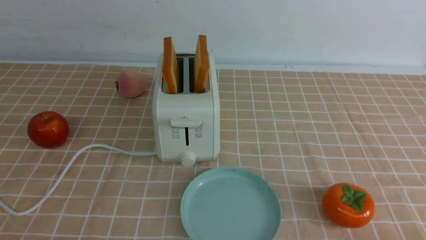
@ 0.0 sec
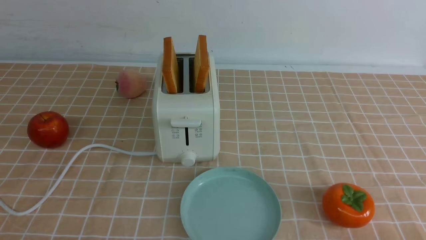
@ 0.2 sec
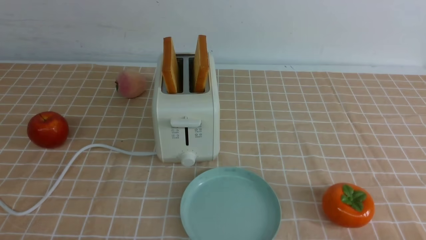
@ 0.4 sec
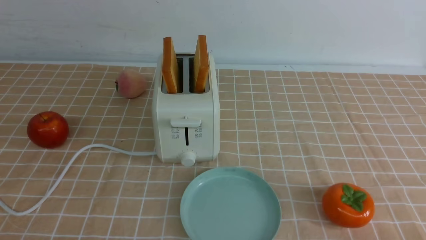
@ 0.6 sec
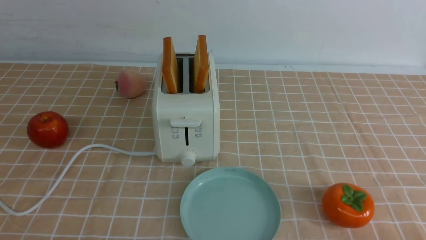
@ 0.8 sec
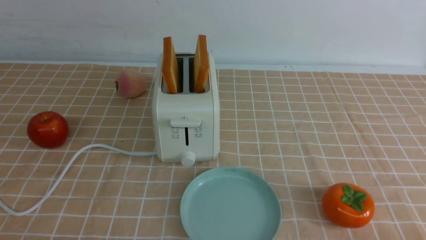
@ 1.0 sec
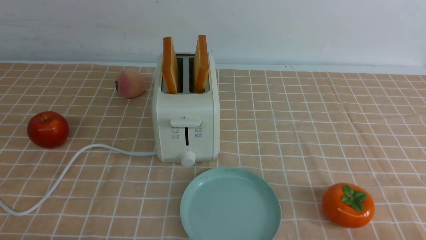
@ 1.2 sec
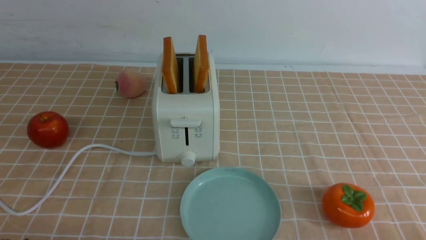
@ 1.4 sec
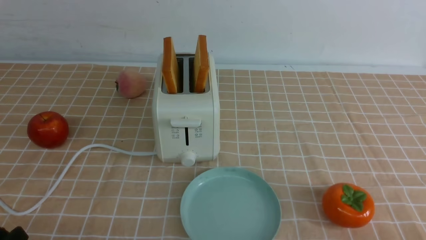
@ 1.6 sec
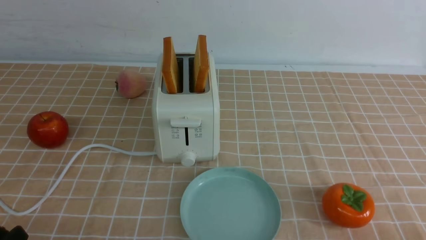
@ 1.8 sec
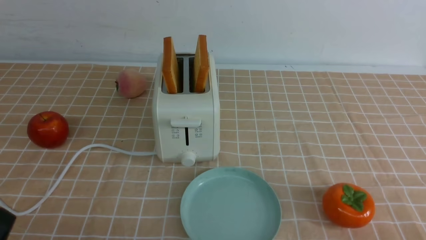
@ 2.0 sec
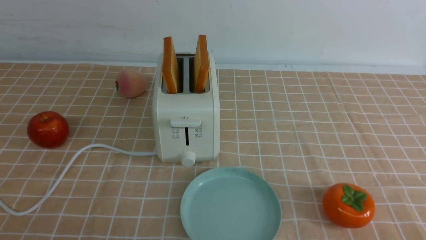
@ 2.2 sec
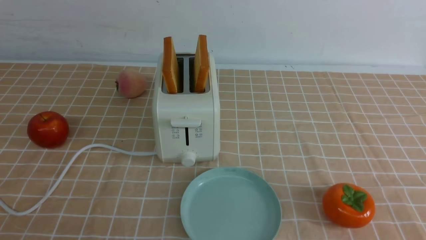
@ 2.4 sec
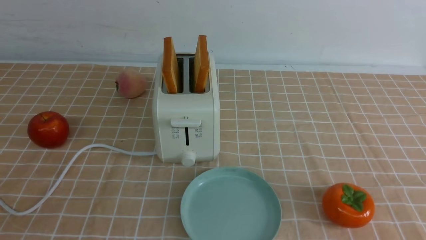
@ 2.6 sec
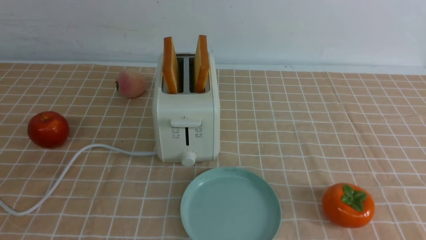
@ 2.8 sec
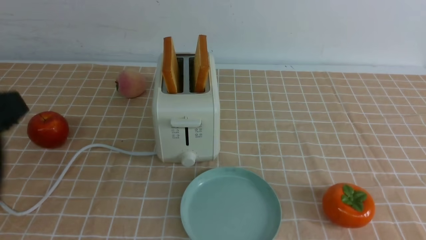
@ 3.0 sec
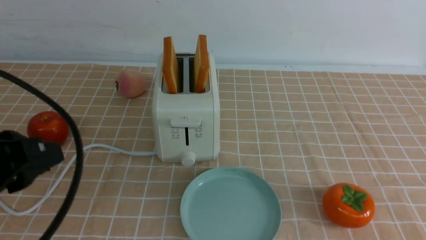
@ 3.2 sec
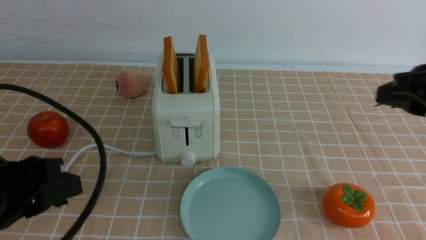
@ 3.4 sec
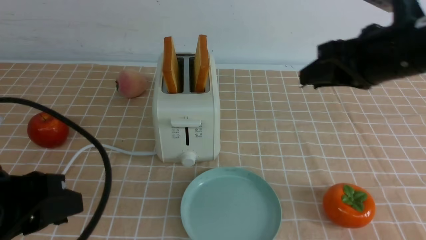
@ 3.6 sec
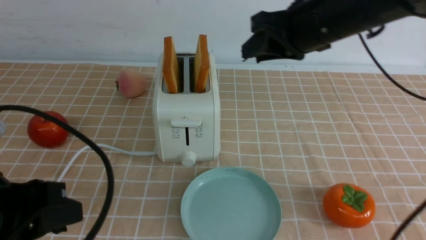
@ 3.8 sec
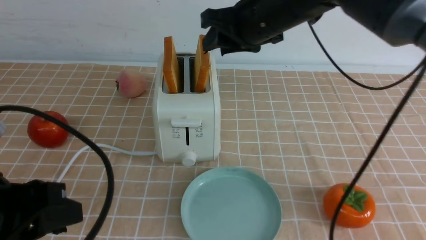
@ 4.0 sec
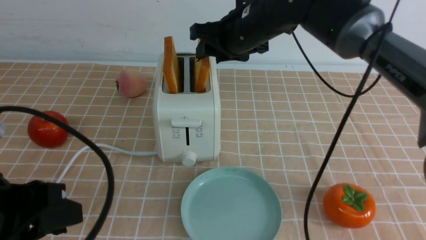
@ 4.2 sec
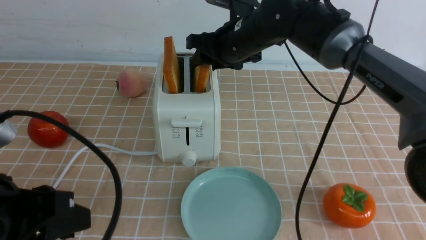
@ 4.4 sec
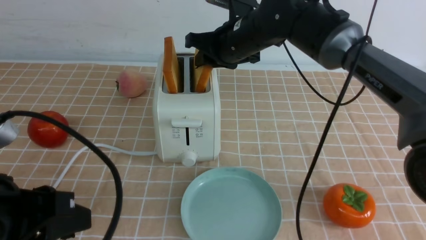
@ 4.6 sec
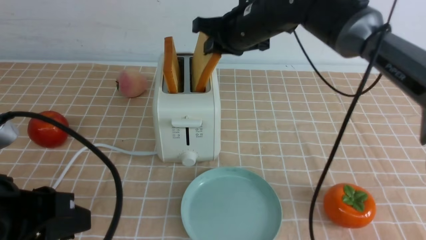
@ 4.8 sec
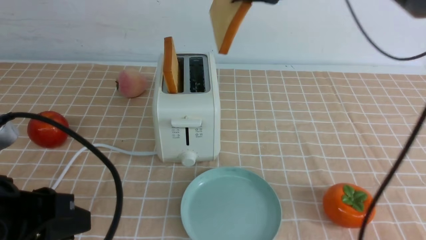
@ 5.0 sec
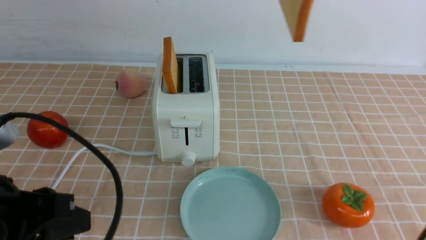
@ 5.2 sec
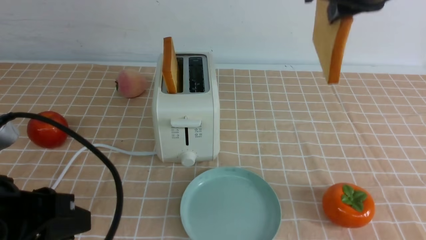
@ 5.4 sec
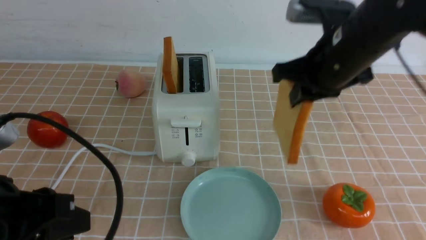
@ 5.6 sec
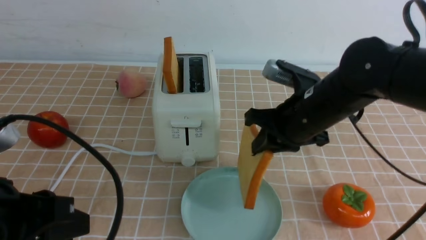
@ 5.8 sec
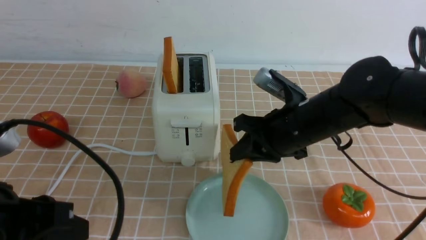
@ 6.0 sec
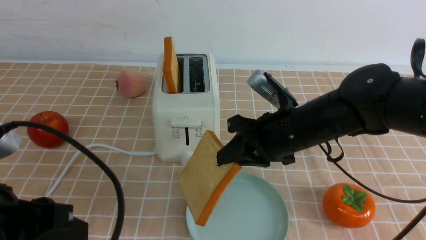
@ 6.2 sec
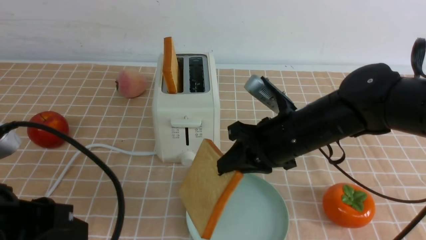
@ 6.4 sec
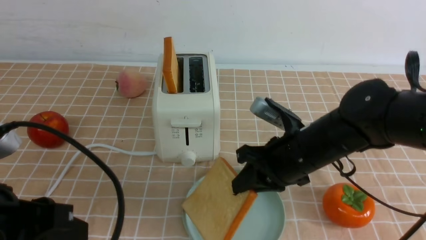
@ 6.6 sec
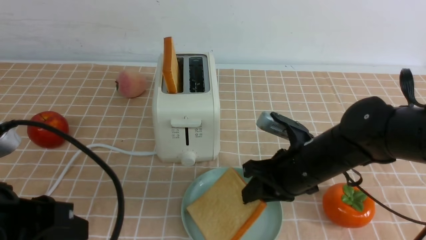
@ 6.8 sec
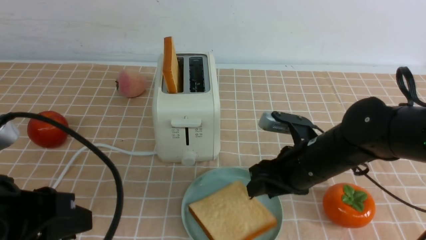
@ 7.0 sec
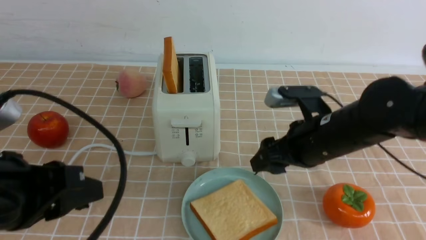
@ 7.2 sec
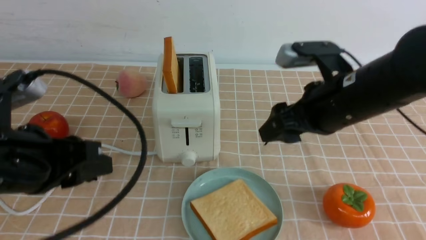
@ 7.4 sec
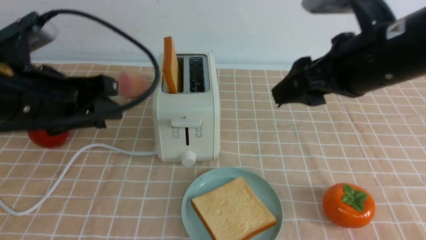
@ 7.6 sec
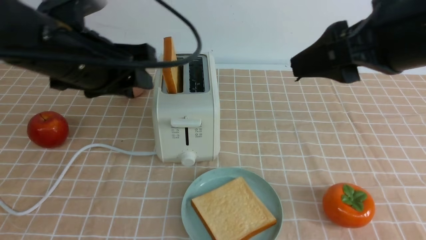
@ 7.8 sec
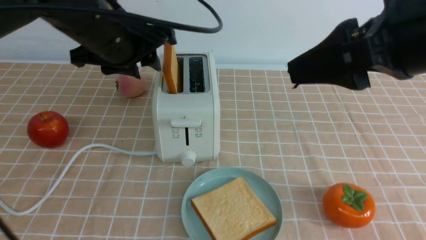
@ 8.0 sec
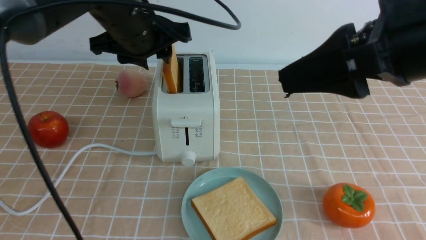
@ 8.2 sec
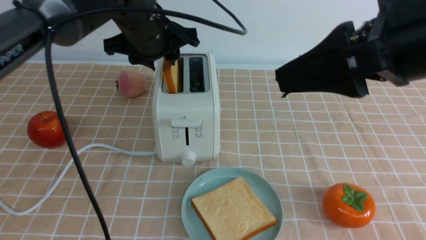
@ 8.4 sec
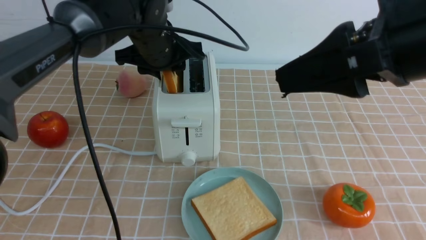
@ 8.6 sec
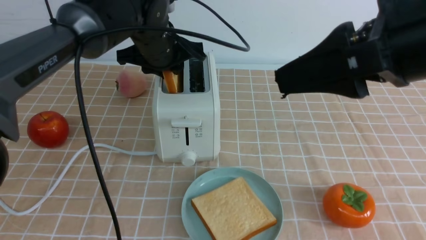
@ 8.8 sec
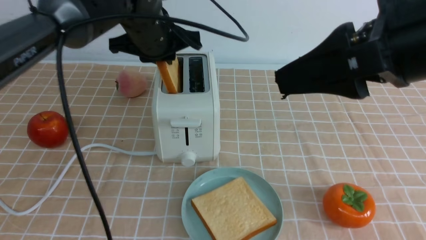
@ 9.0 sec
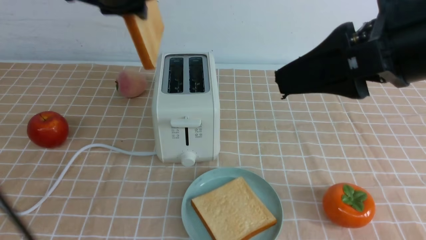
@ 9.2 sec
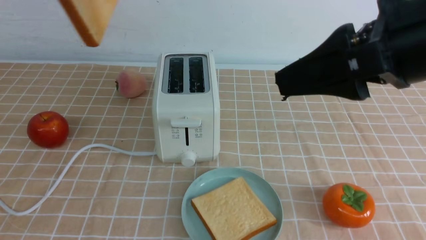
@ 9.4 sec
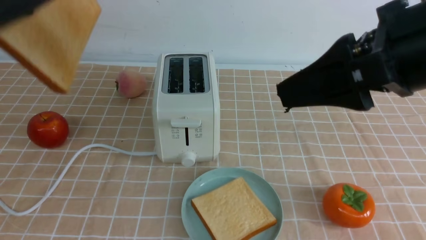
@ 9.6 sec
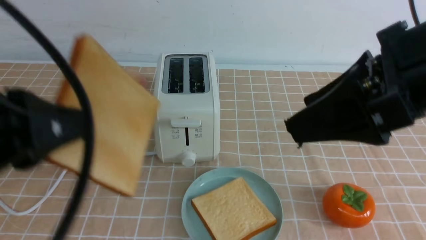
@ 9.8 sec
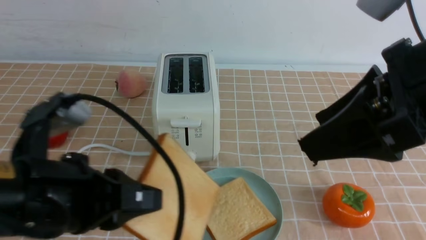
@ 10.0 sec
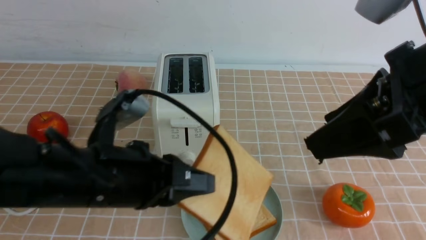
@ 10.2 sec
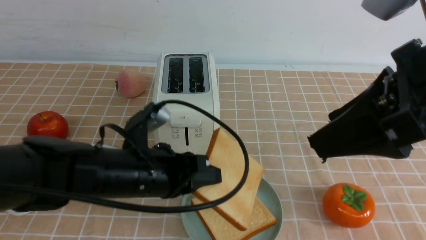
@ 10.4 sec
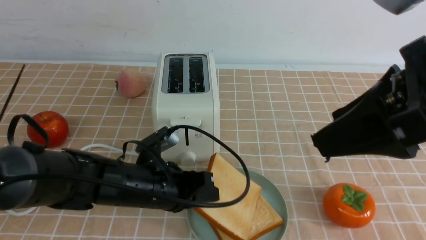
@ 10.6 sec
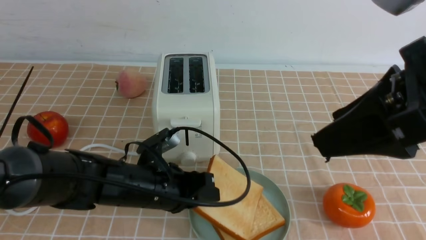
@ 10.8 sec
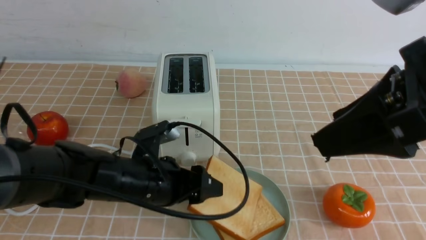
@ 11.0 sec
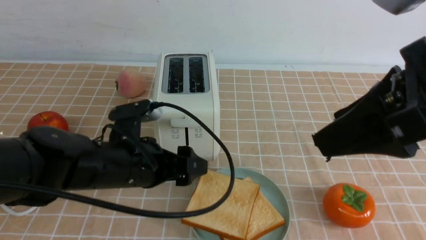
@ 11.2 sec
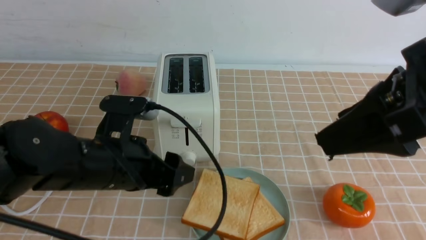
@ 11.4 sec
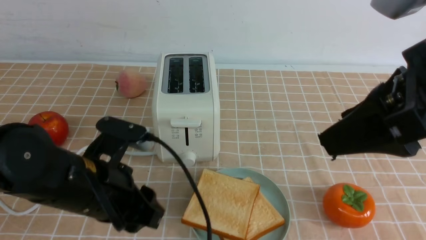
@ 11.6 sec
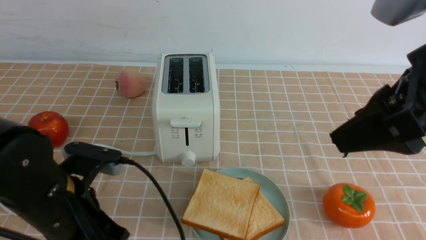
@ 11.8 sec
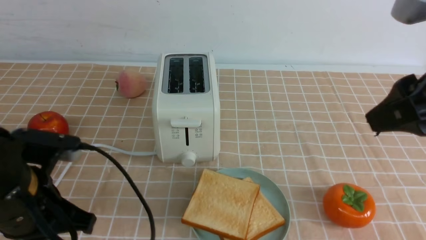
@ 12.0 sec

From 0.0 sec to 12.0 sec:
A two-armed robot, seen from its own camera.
Task of the whole recording: take toasted bread from bread machine on light coffee tablecloth place on plate.
Step, from 0.0 sec to 4.8 sec: use the right arm to take out a slice of bread.
Step, from 5.0 sec to 6.8 sec: use the right arm to put a slice of bread into the plate.
Step, from 7.2 sec to 9.0 sec: use the left arm to take out a slice of bread.
Step, from 9.2 sec to 11.0 sec: use the left arm to put a slice of bread into the empty plate.
From 1.6 sec to 3.0 sec: The left gripper travels upward by roughly 15 cm.
From 3.0 sec to 4.4 sec: The left gripper travels downward by about 5 cm; the right gripper shifts about 40 cm forward and to the left.
From 4.4 sec to 6.0 sec: The right gripper goes roughly 15 cm backward and to the right, travels upward and back again, about 15 cm each way, and closes up.
From 6.0 sec to 7.6 sec: The right gripper shifts some 15 cm upward and backward, and opens, while the left gripper is displaced forward by roughly 10 cm.
From 7.6 sec to 9.0 sec: The left gripper travels forward and to the right by some 15 cm. Meanwhile the right gripper goes roughly 10 cm backward and upward.
From 9.0 sec to 10.4 sec: The left gripper travels downward and backward by some 20 cm.
From 10.4 sec to 12.0 sec: The left gripper heads to the left and backward, covering about 10 cm, and opens and closes again.

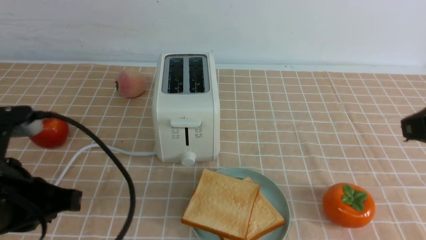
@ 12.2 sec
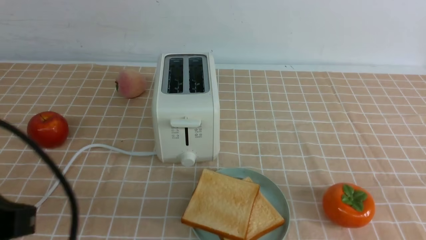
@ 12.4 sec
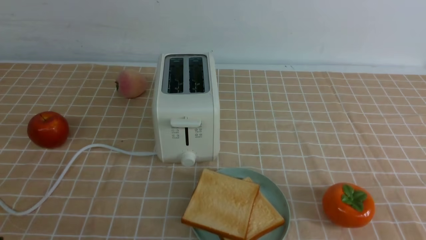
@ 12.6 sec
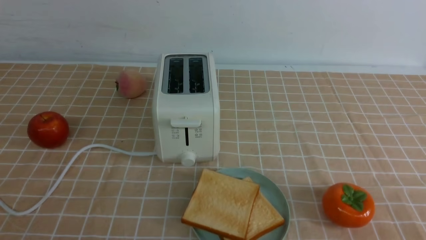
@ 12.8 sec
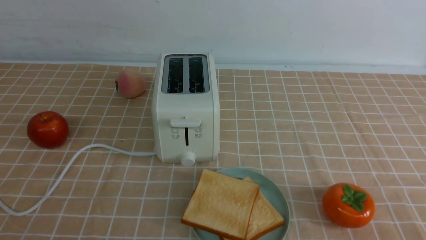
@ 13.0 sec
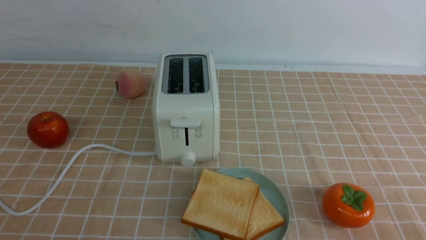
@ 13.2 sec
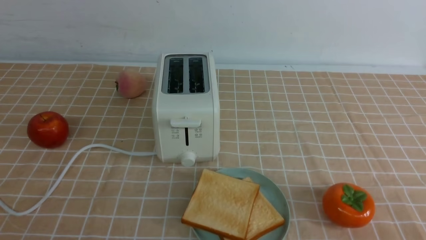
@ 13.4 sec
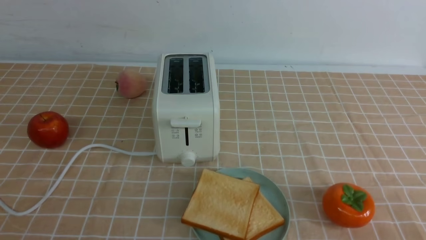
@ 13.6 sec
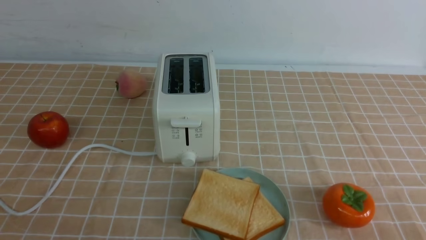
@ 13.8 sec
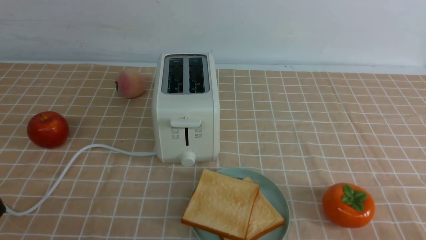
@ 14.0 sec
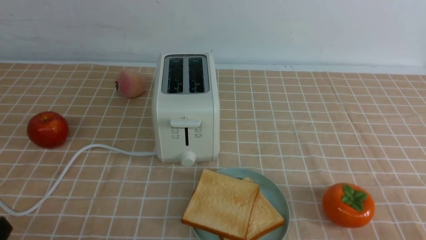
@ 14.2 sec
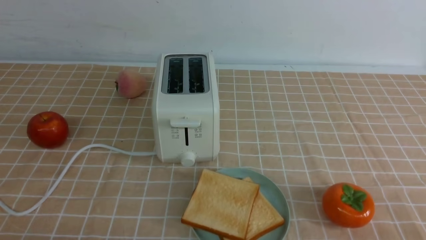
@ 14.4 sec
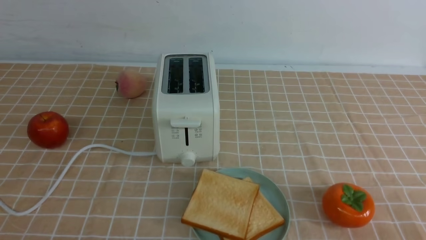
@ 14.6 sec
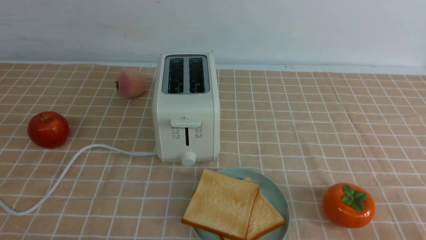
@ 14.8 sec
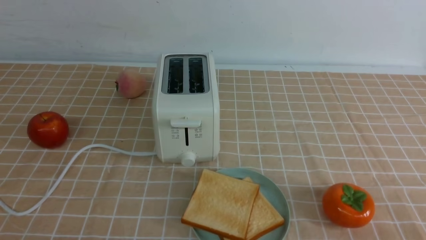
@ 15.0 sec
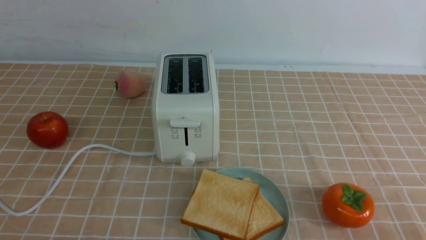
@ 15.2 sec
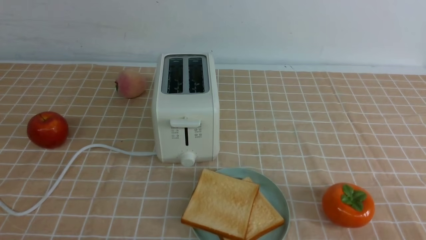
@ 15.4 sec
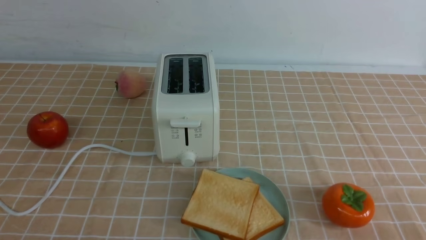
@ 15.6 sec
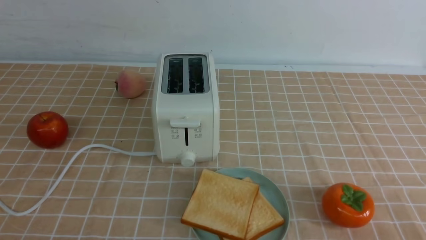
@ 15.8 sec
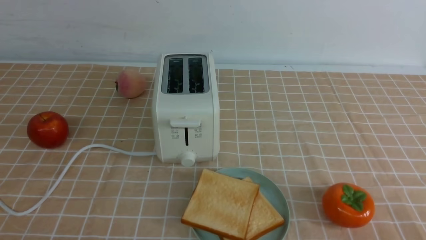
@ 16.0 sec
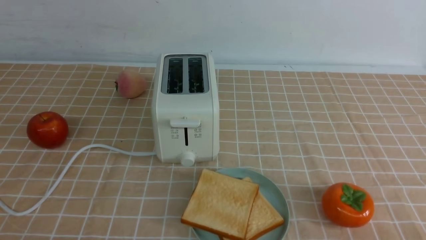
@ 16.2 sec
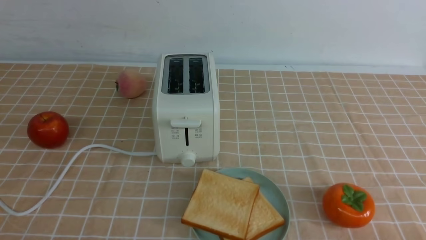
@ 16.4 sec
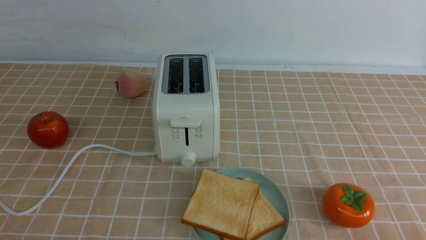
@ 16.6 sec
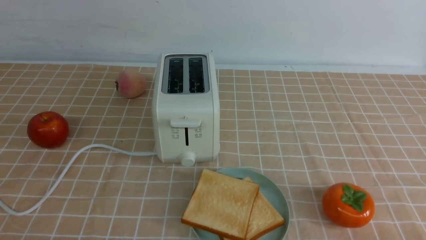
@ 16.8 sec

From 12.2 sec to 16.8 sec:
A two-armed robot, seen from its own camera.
Task of the whole recording: take toasted bread from bread machine on light coffee tablecloth place on plate.
From 12.2 sec to 13.8 sec: The left gripper goes approximately 10 cm backward. The right gripper shifts roughly 15 cm downward, backward and to the right.
